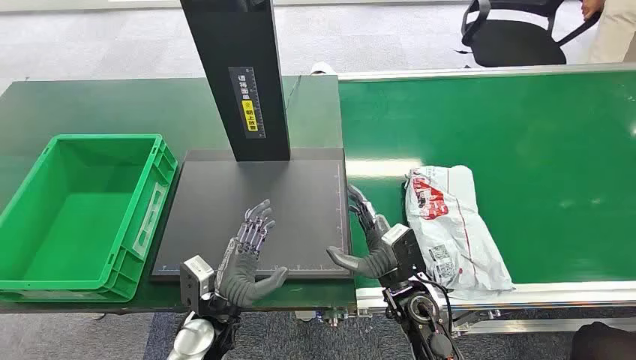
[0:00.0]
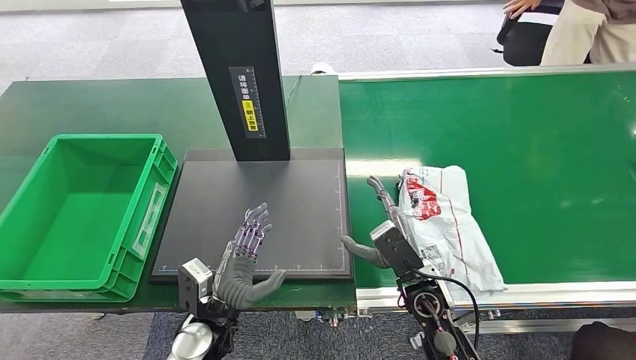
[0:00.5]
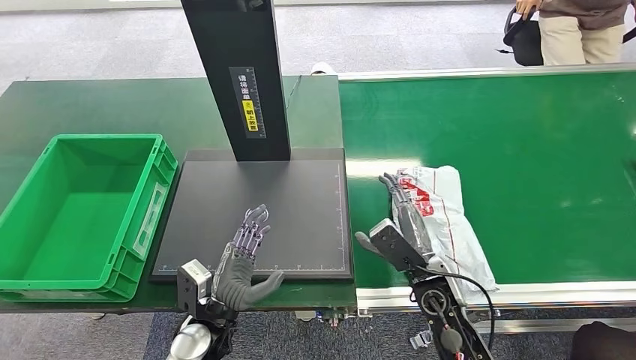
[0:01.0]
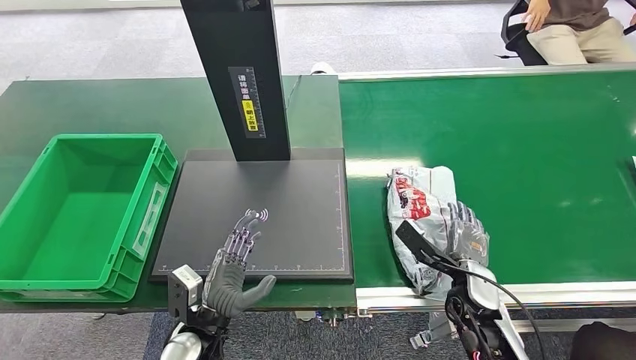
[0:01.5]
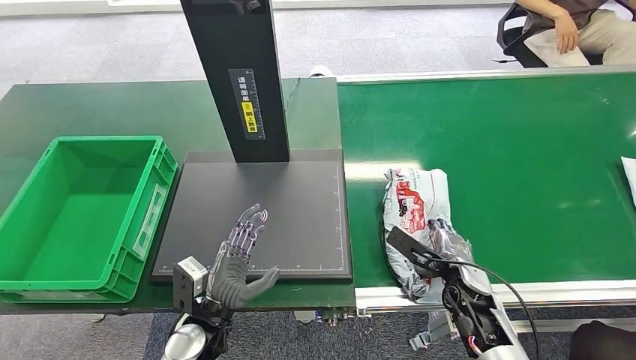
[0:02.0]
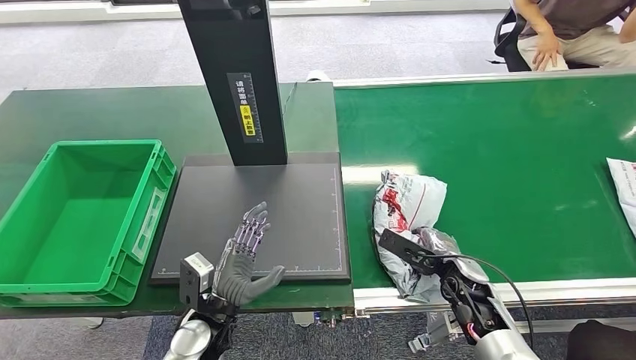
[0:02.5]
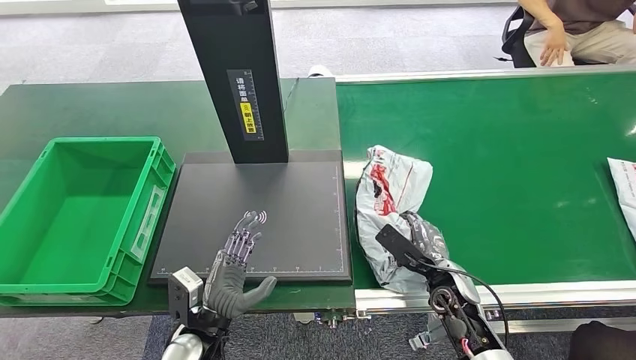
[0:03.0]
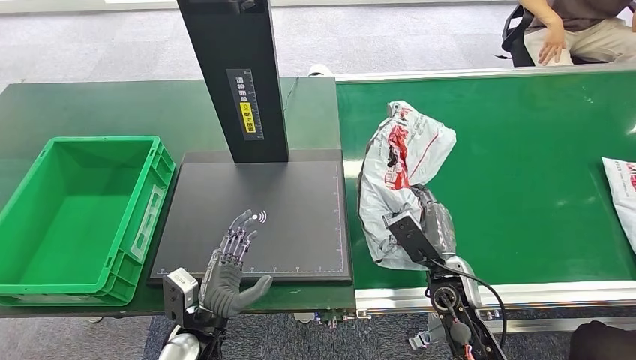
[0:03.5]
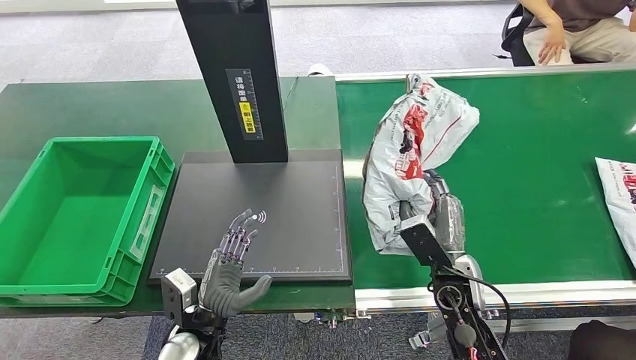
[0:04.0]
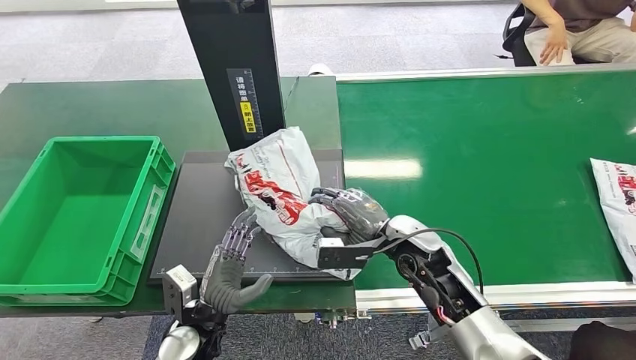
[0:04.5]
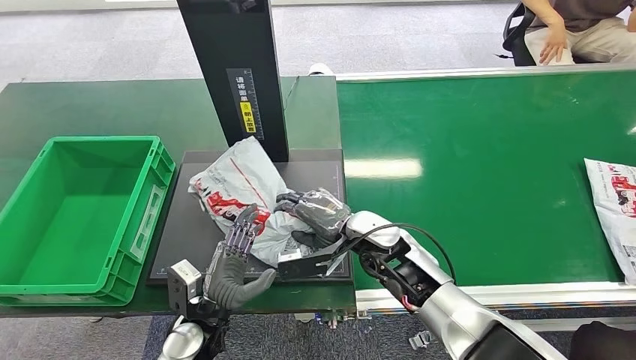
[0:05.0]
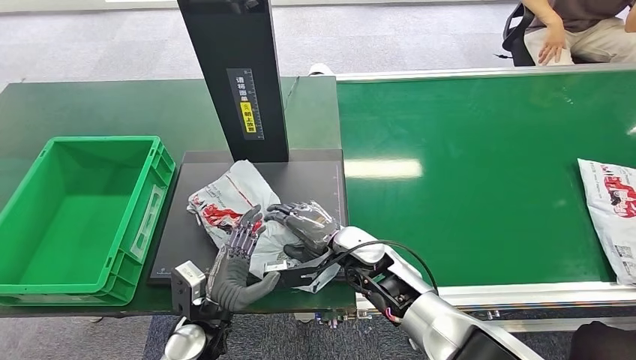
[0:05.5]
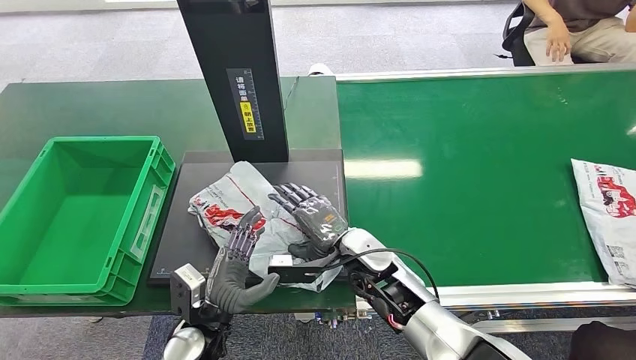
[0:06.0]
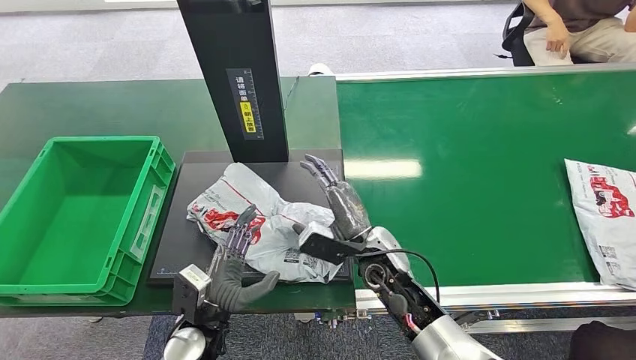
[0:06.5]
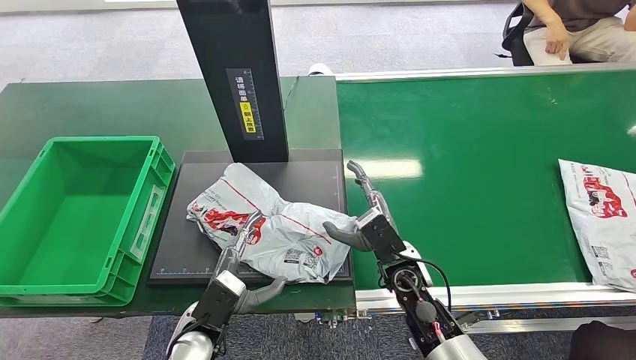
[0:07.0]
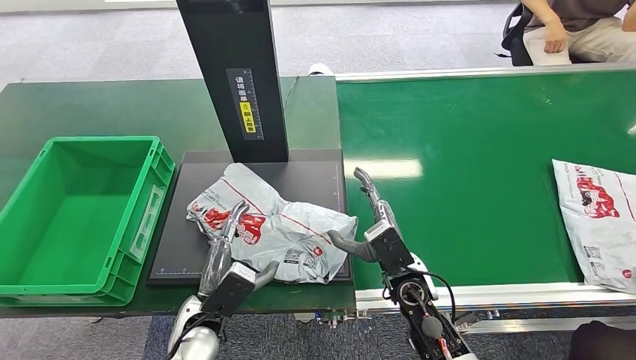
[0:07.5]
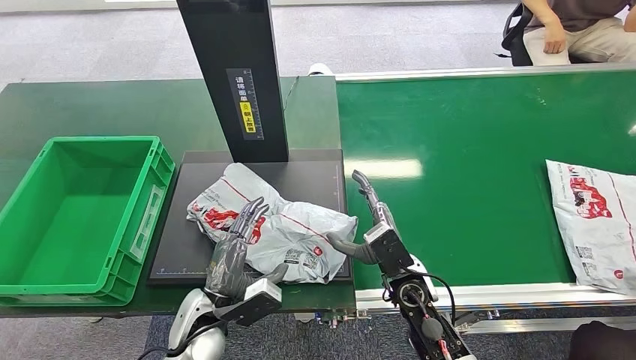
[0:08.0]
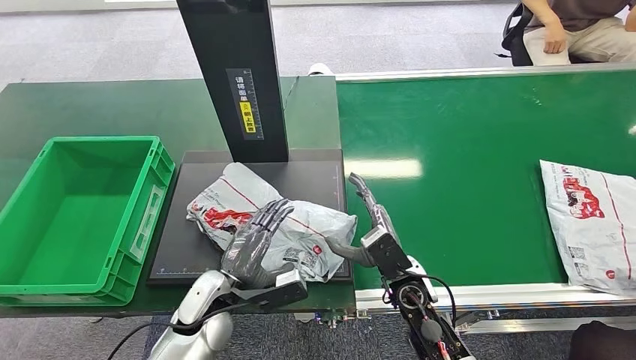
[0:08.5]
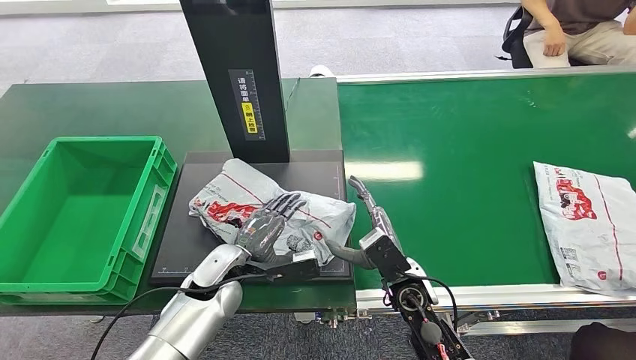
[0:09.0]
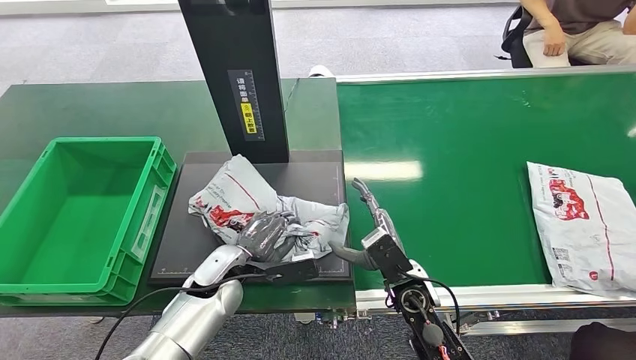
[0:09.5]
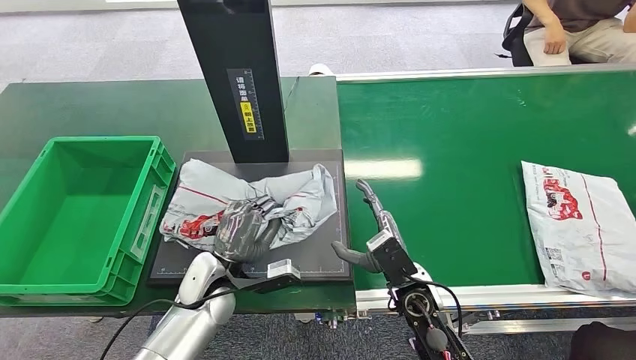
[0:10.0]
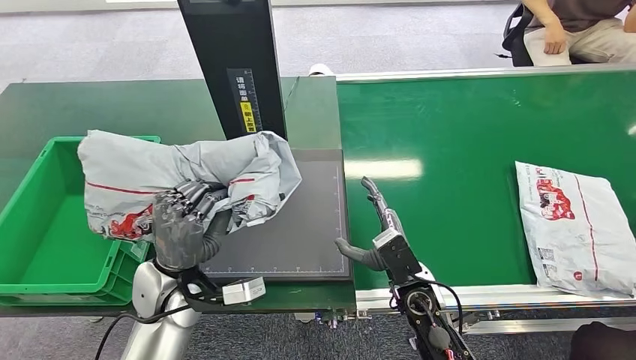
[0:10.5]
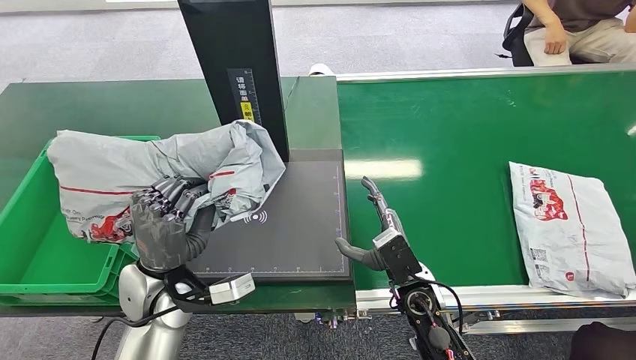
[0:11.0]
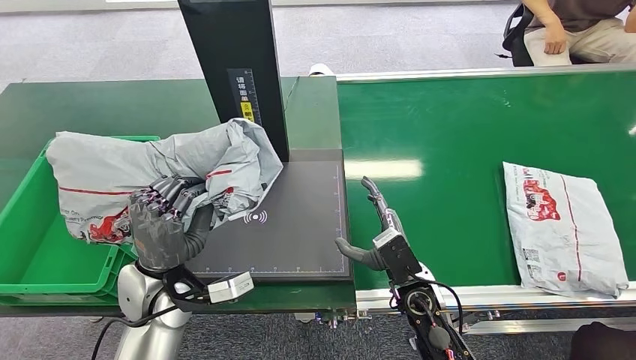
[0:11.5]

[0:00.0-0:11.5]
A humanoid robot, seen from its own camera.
Step, 0:00.0 to 0:03.5: Pick up the package from the conveyor belt.
Step, 0:04.0 to 0:06.5: Place the package onto the inbound machine.
Step, 0:07.0 to 0:10.5: Pick up the package from the inbound machine.
0:06.0 to 0:07.5: The right hand travels to the right by about 5 cm.
0:07.5 to 0:09.5: The left hand travels forward by roughly 10 cm.

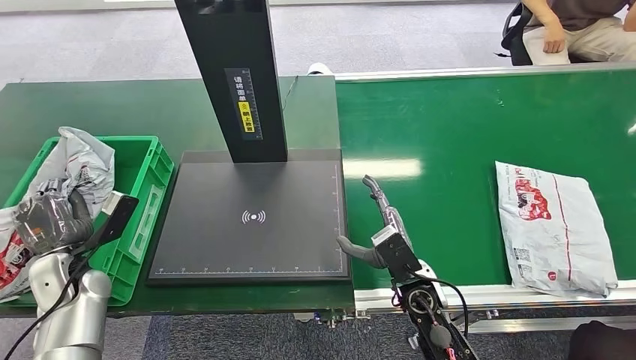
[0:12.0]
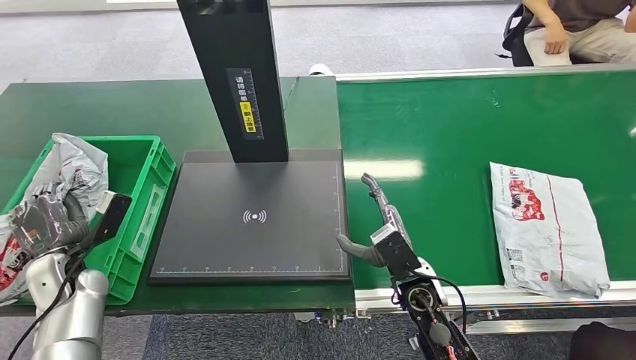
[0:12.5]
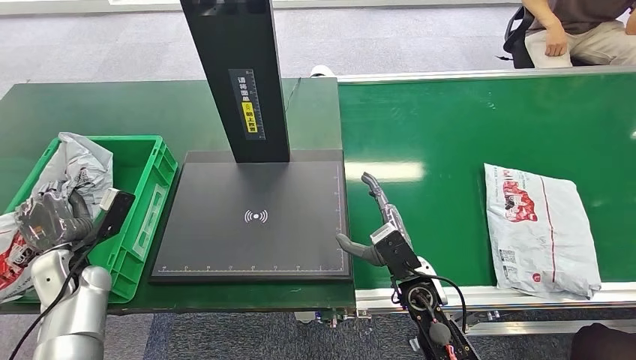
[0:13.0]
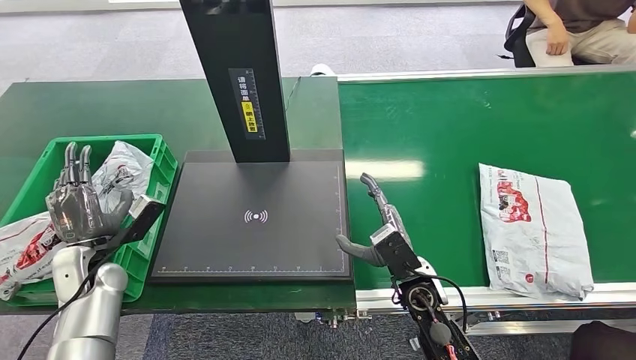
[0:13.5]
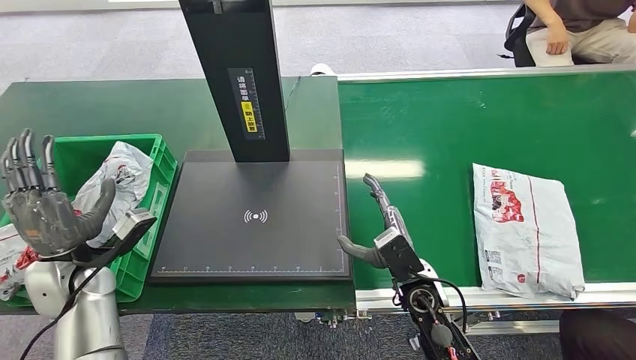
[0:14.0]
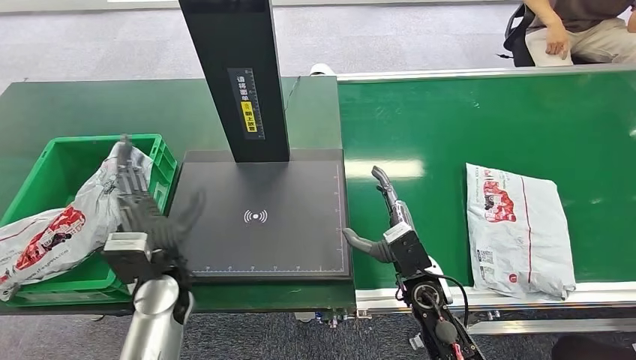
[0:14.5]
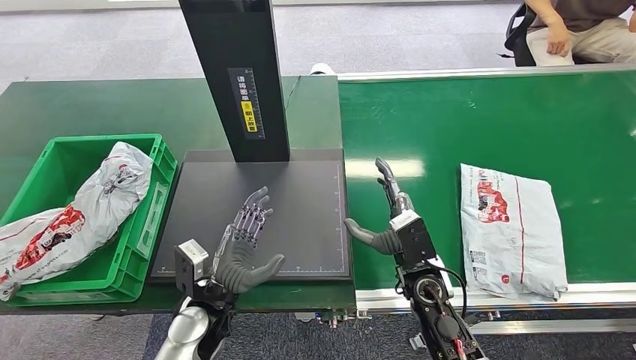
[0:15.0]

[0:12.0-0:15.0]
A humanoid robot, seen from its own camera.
Step, 0:12.0 to 0:15.0: Place the package into the parcel locker.
0:13.5 to 0:15.0: The left hand goes some 20 cm to the right.
